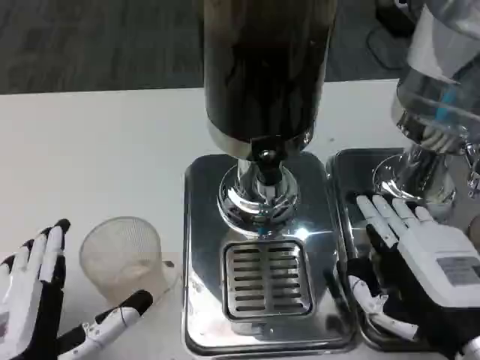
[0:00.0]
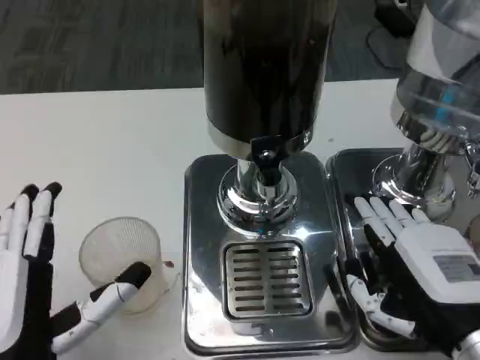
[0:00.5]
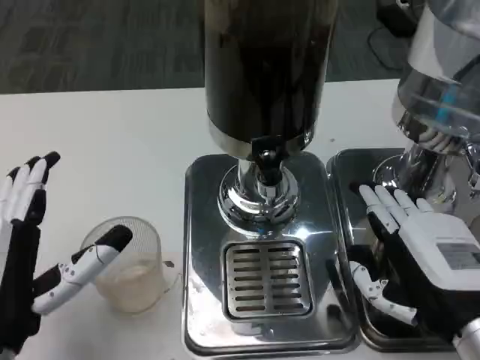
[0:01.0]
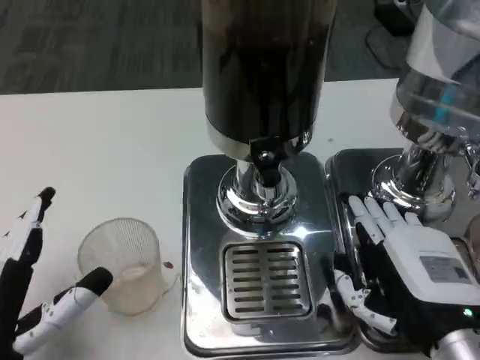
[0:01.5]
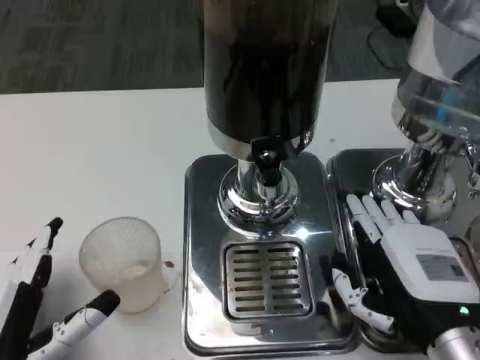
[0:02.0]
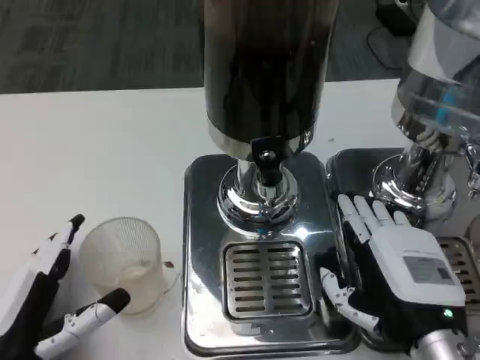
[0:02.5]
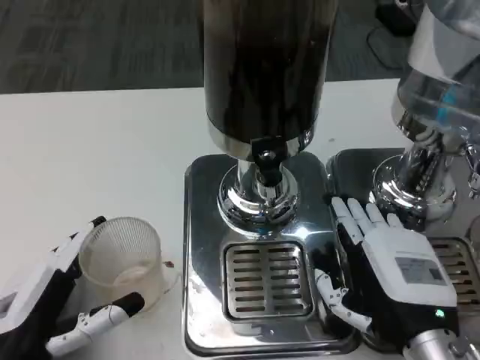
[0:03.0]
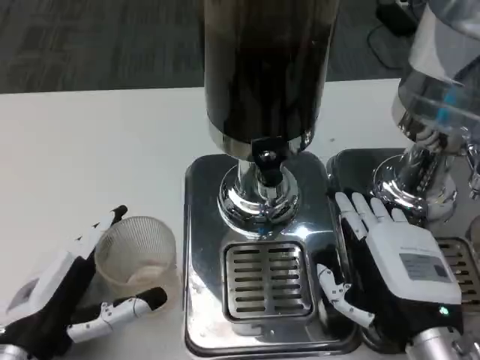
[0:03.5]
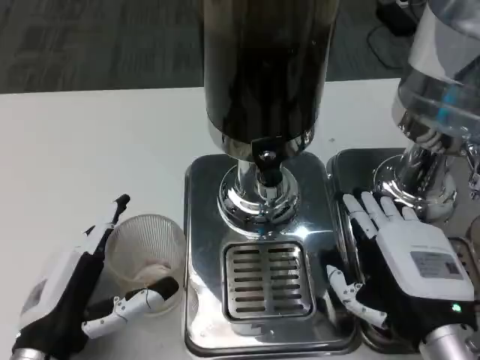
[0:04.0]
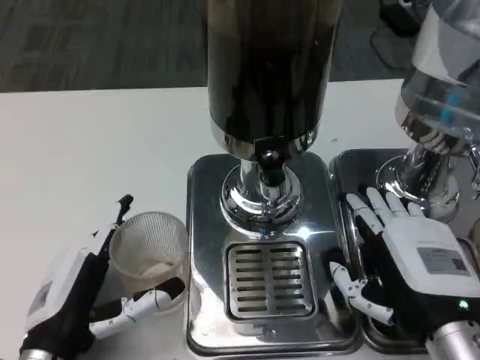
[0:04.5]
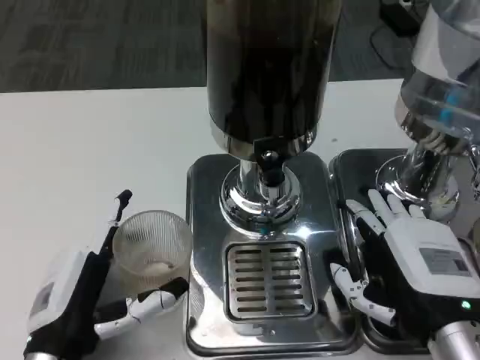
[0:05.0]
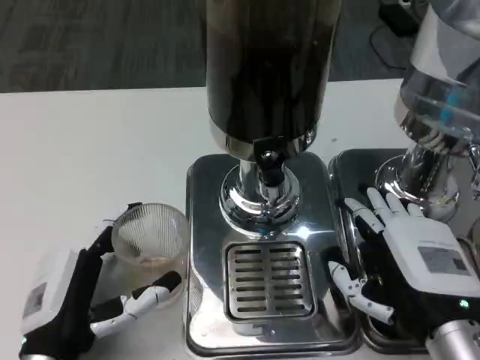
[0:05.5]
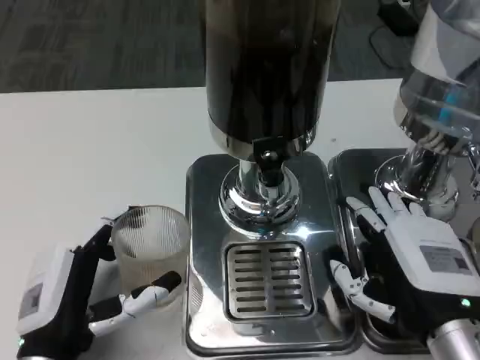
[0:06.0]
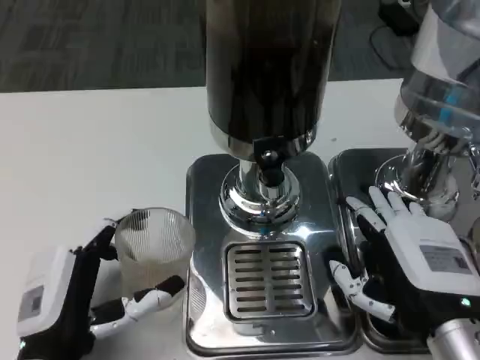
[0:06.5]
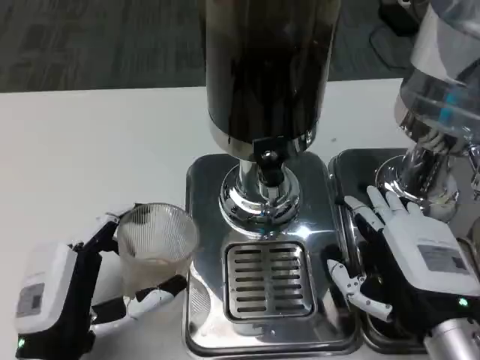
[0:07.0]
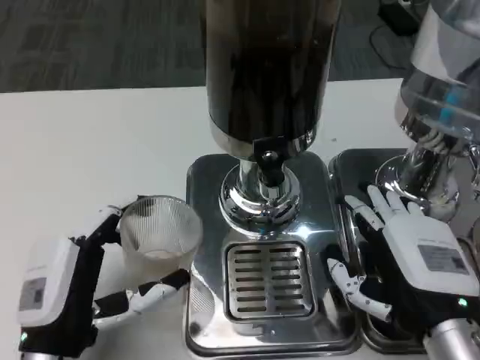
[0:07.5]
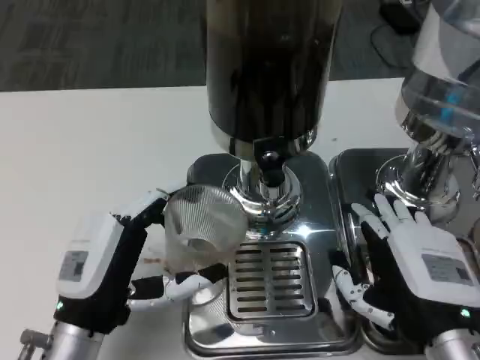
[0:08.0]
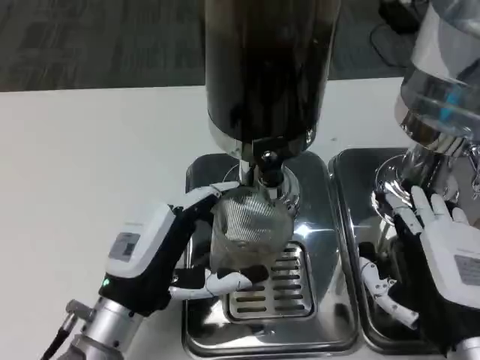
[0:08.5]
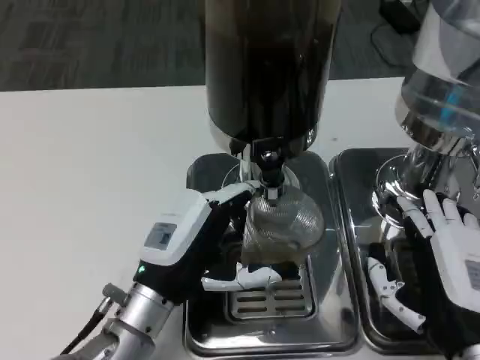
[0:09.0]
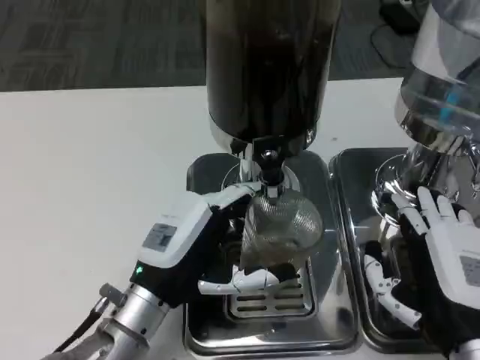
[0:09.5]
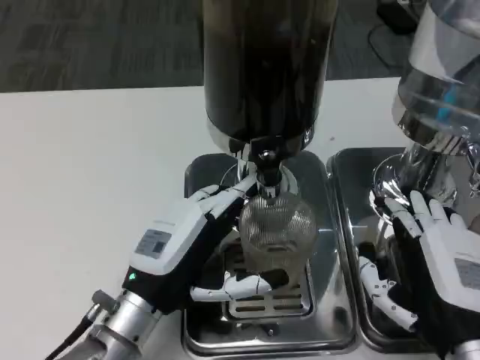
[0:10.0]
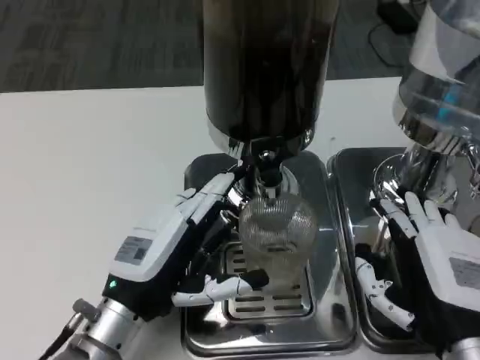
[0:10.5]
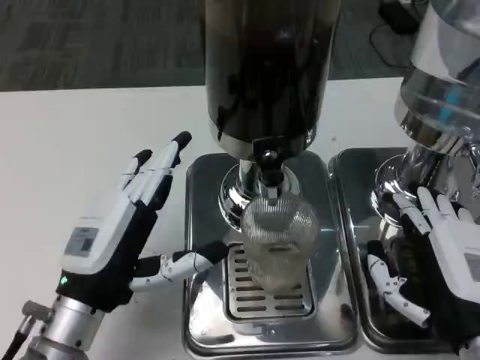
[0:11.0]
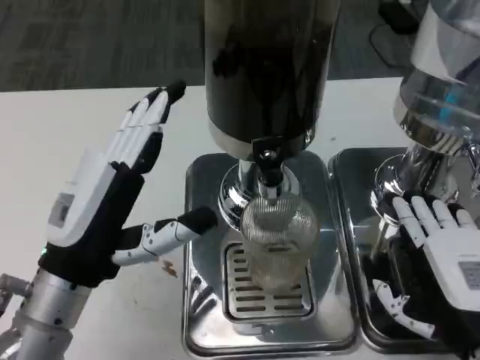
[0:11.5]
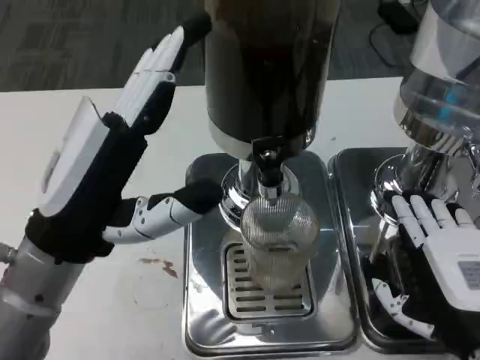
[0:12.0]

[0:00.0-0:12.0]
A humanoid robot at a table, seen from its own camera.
Task of the whole recording: Grasp the cup under the faucet to collect the drink, then remove the cup.
0:00.0 to 0:02.0: The left hand moves to the left, about 5 cm.
0:02.0 to 0:04.0: The left hand shifts by some 5 cm.
0:04.0 to 0:06.0: The hands make only small movements.
0:10.0 to 0:12.0: The left hand goes some 10 cm upward.

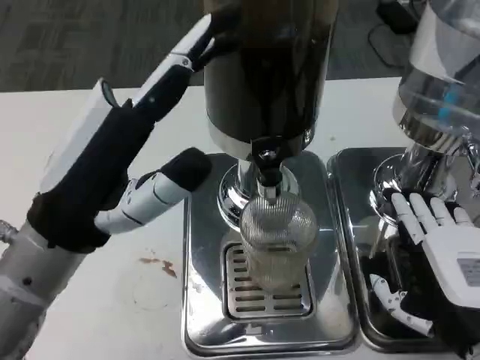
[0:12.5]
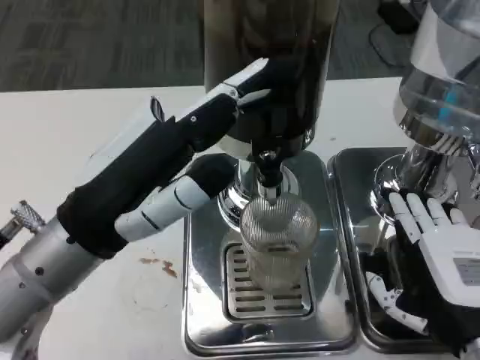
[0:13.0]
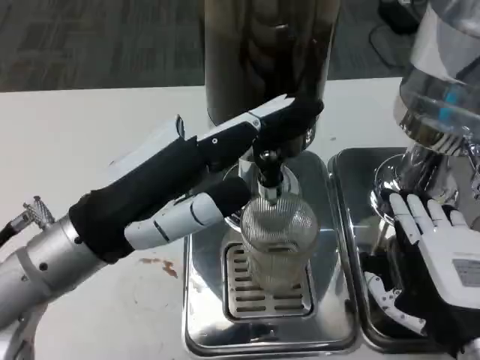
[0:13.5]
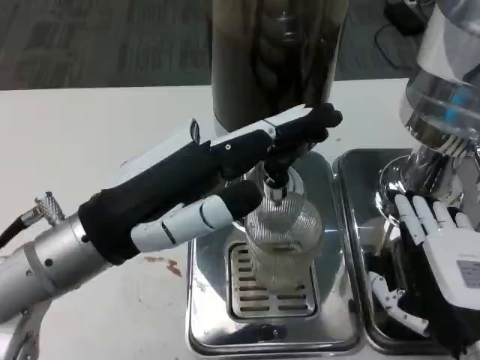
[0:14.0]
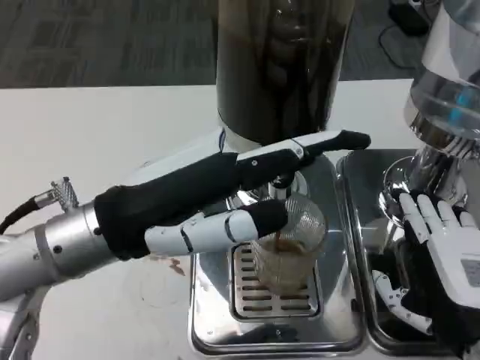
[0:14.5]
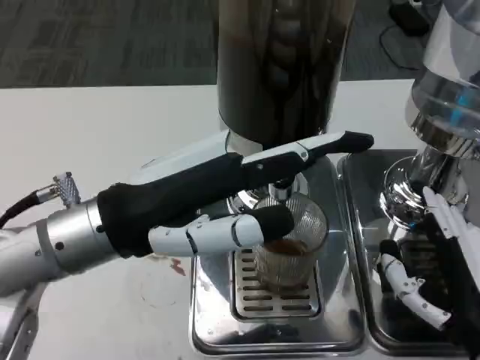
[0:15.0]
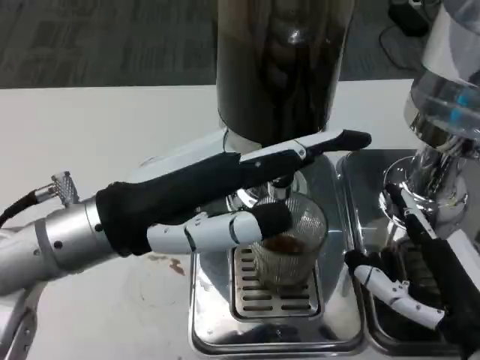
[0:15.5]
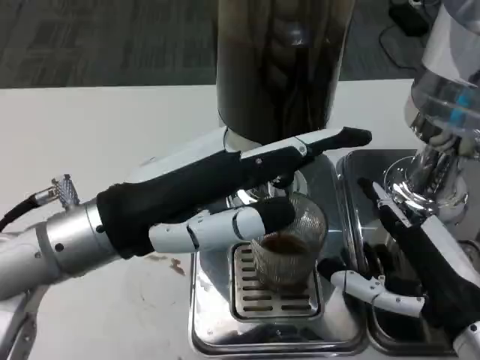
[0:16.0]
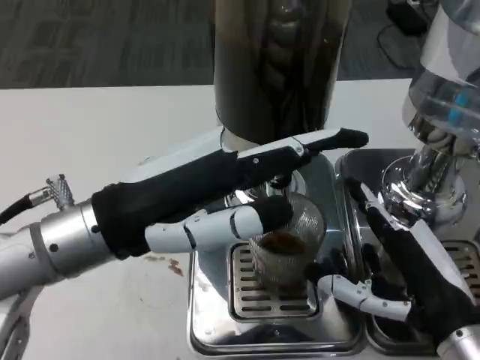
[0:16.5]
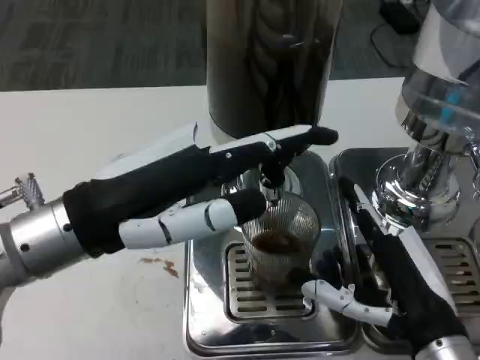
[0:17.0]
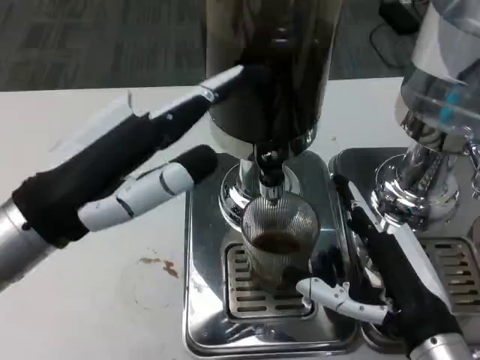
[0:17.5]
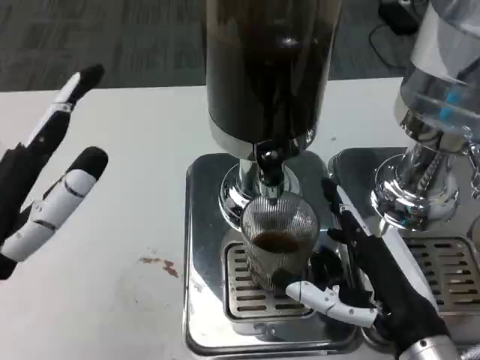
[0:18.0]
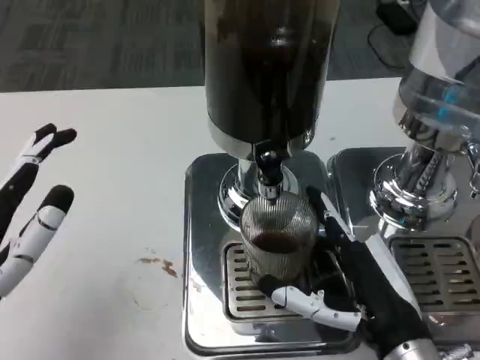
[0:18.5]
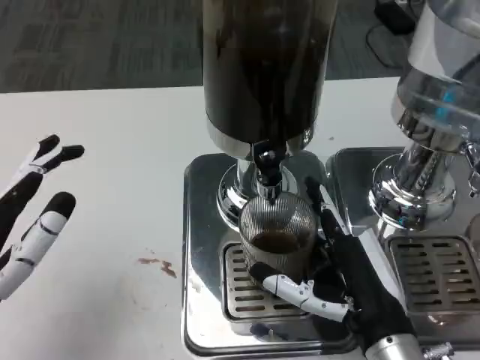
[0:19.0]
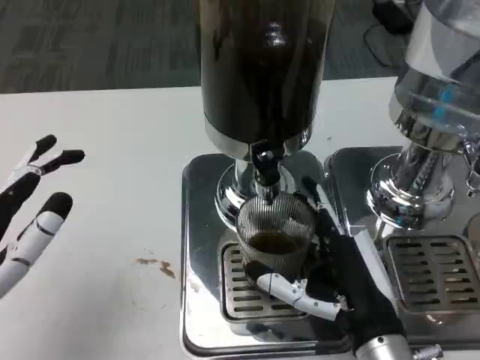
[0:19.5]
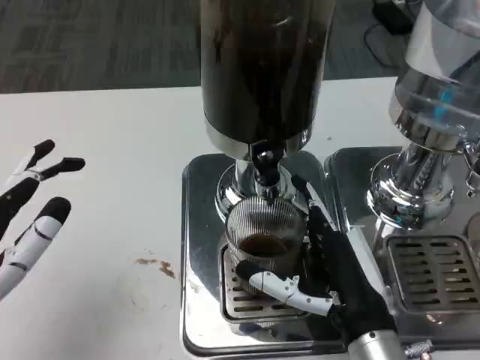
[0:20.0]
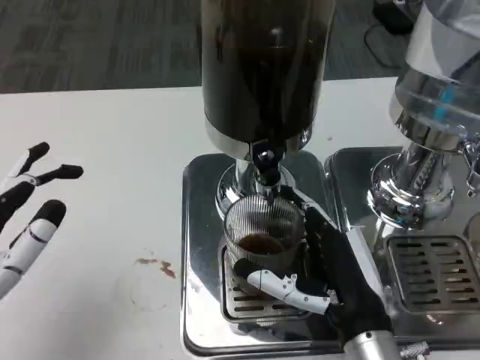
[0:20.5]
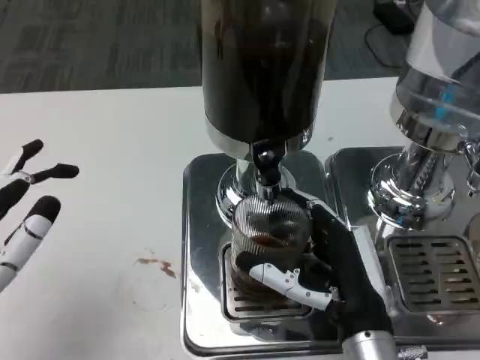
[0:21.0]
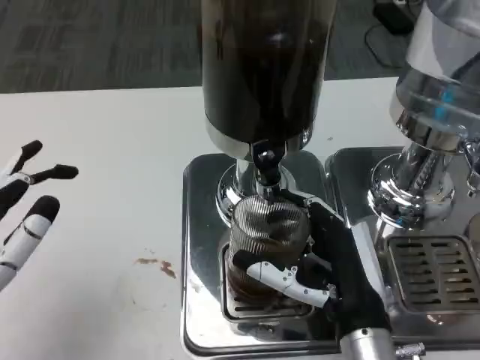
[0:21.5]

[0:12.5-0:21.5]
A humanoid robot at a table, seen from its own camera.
Task of the whole recording: Grasp the cup under the faucet to collect the drink, then remove the cup.
0:17.0 to 0:19.5: The right hand moves some 5 cm, while the left hand shifts some 15 cm downward, backward and to the left.
0:19.5 to 0:21.5: The hands stay close to where they were, moving slightly.

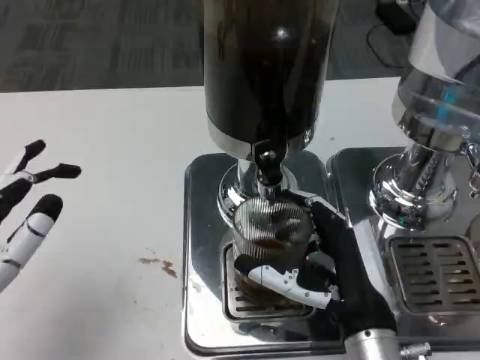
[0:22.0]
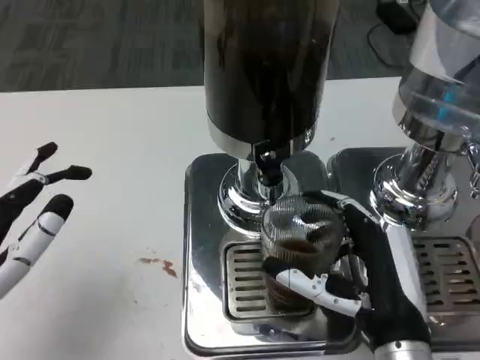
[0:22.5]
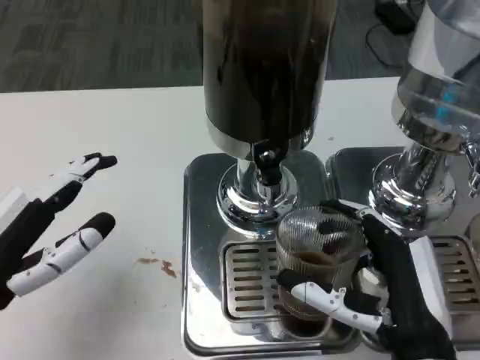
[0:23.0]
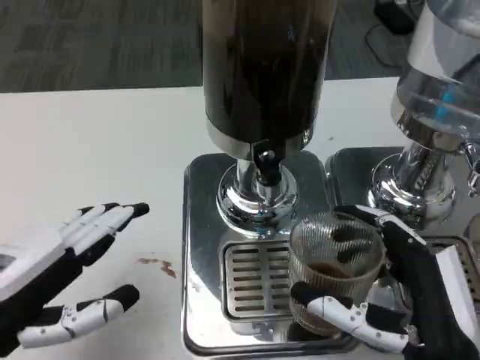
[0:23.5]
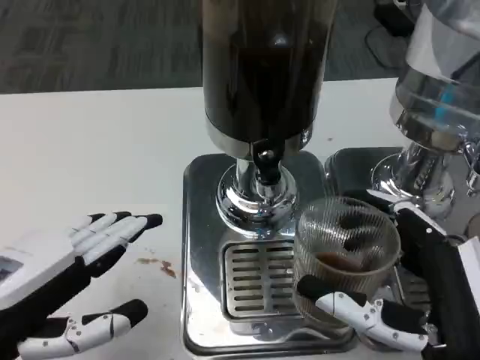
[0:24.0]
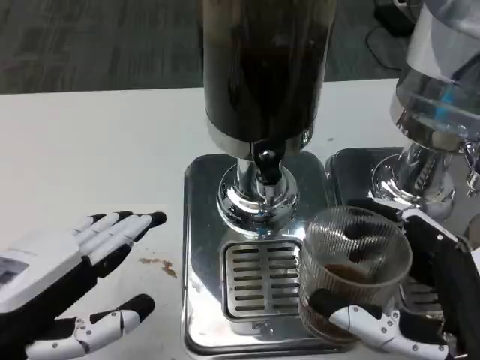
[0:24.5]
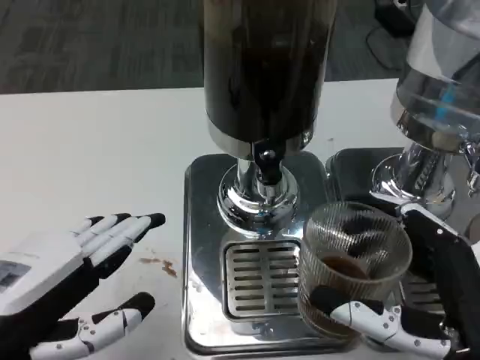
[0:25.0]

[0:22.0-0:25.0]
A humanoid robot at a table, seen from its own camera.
Task of the whole recording: Grasp the cup under the faucet to collect the drink, then remove the cup.
0:22.0 to 0:23.5: The right hand is displaced backward by some 5 cm.
0:23.5 to 0:25.0: The left hand ends up about 5 cm from where it was.

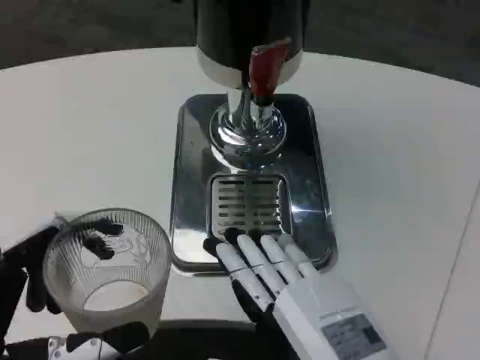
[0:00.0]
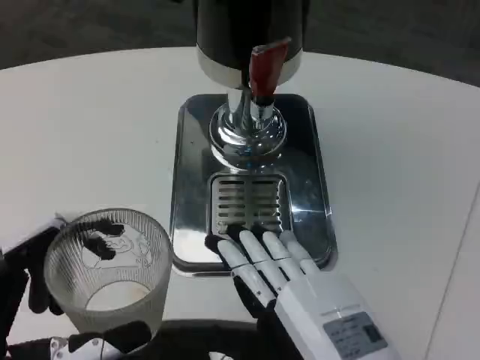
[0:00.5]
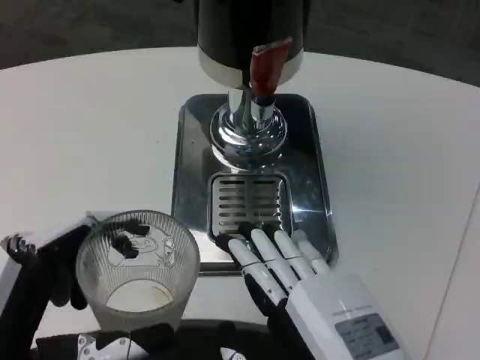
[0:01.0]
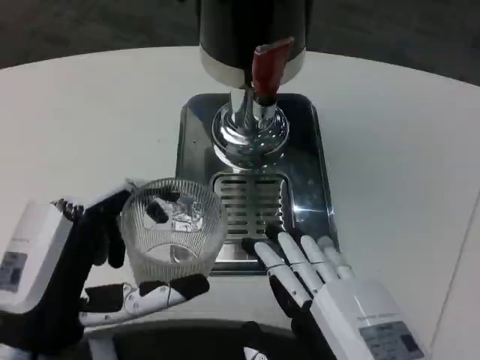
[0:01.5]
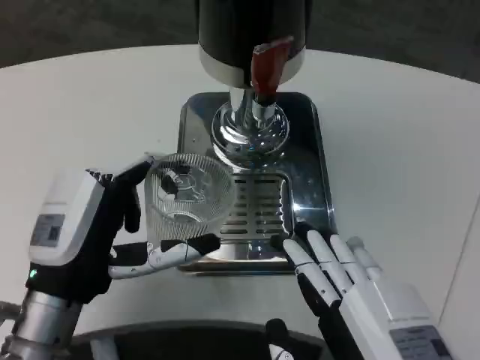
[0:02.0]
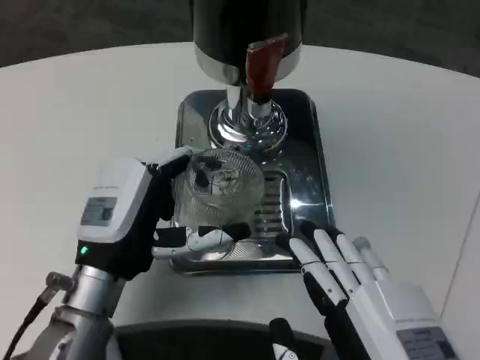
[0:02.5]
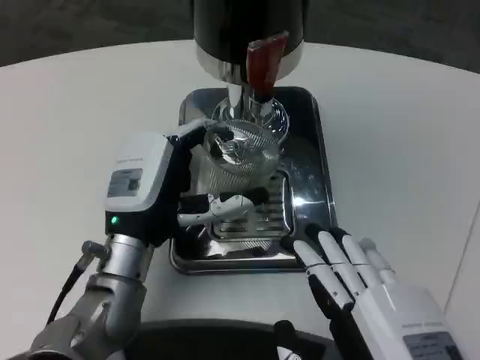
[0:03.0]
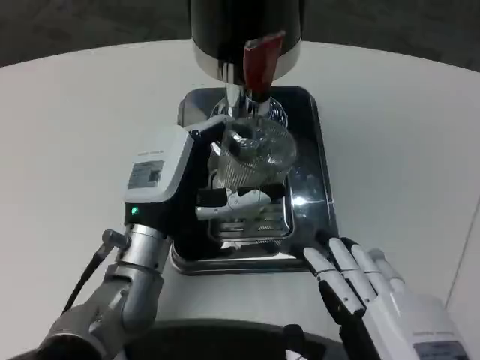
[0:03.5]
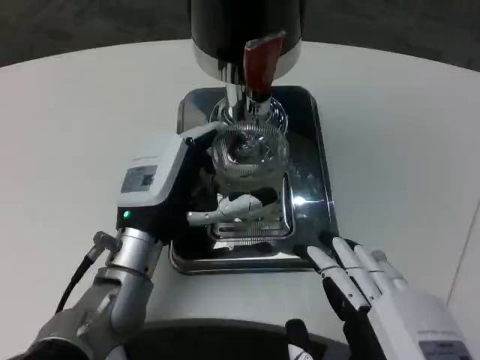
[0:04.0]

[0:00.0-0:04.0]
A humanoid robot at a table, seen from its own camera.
Task of the whole recording: Grasp the cup under the faucet to collect the drink, then remove the cup.
0:00.0 to 0:02.0: The left hand goes some 10 cm forward.
0:02.0 to 0:04.0: The left hand heads forward and to the right, covering some 10 cm.
